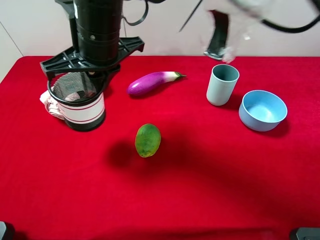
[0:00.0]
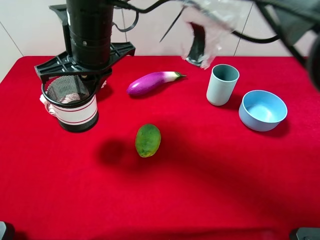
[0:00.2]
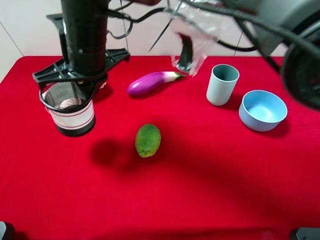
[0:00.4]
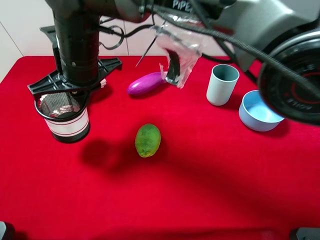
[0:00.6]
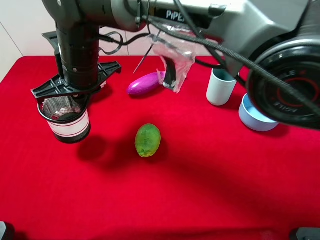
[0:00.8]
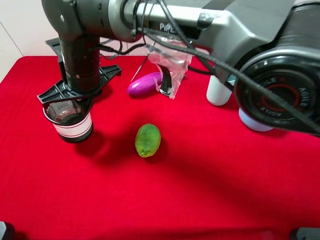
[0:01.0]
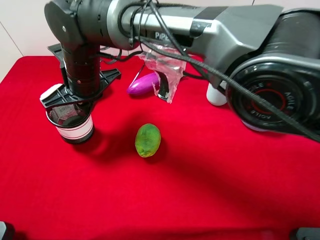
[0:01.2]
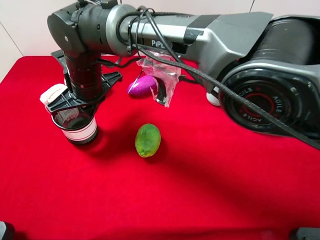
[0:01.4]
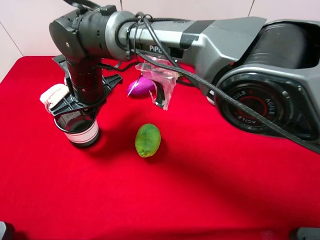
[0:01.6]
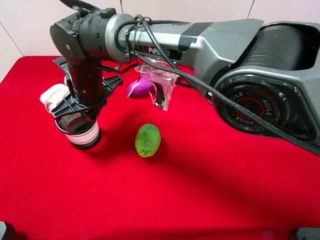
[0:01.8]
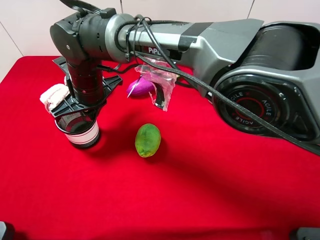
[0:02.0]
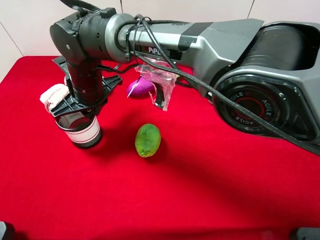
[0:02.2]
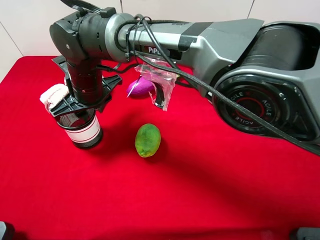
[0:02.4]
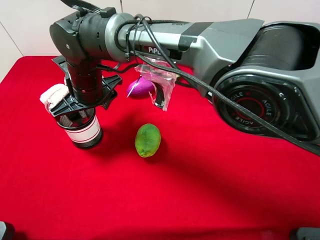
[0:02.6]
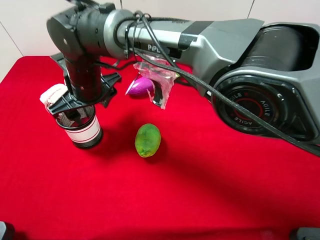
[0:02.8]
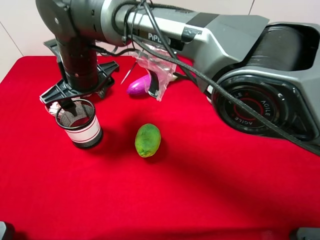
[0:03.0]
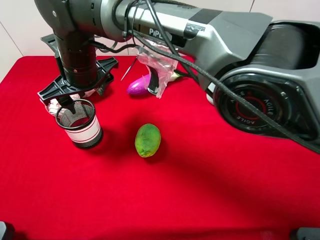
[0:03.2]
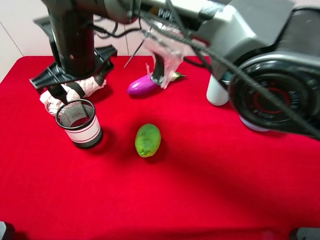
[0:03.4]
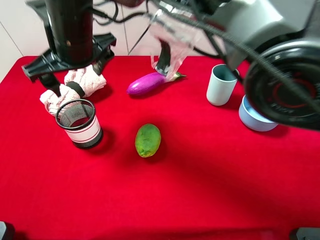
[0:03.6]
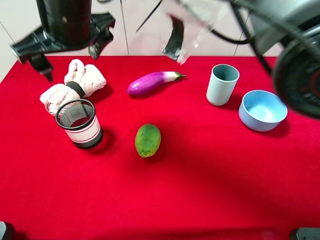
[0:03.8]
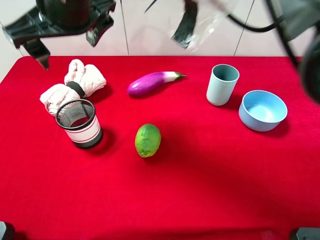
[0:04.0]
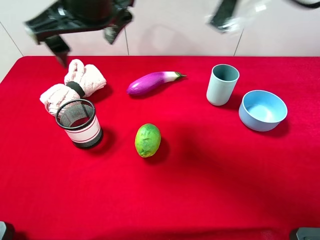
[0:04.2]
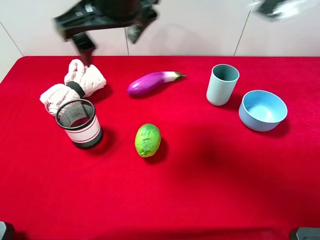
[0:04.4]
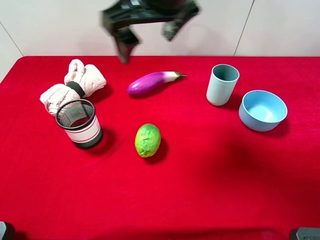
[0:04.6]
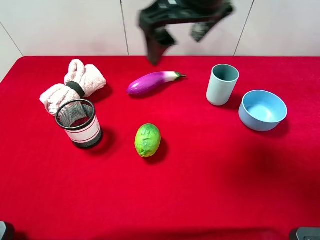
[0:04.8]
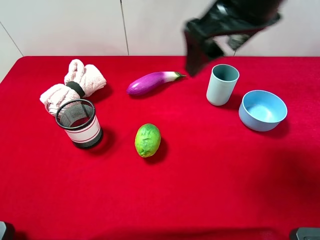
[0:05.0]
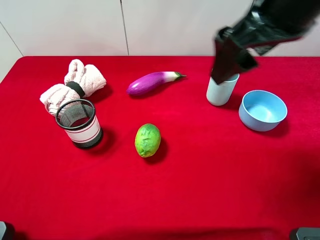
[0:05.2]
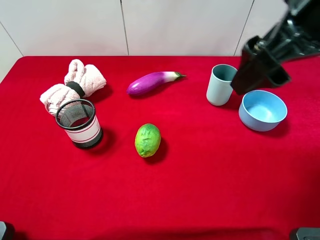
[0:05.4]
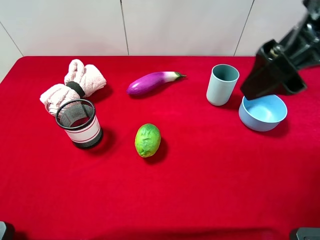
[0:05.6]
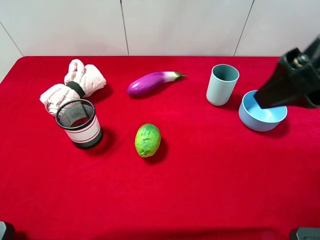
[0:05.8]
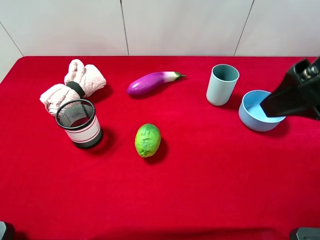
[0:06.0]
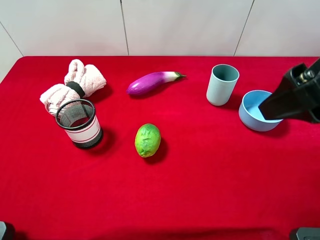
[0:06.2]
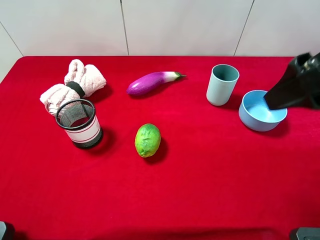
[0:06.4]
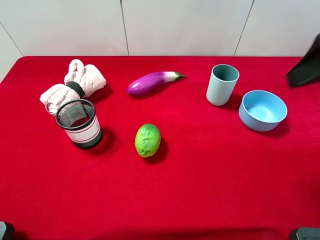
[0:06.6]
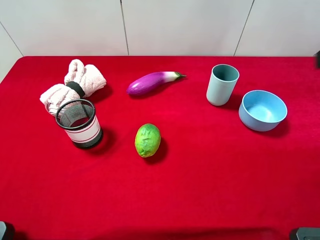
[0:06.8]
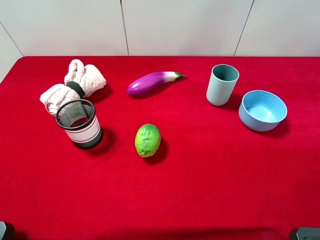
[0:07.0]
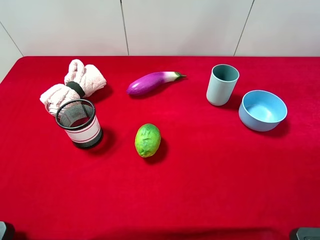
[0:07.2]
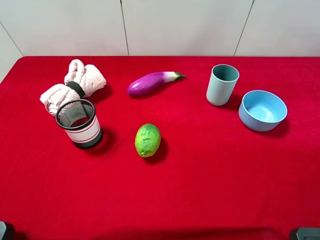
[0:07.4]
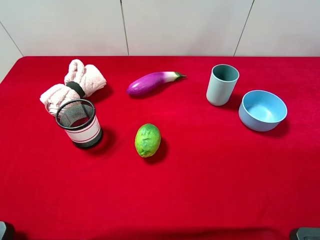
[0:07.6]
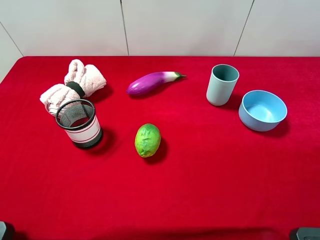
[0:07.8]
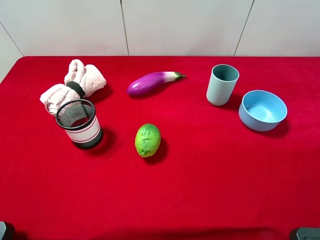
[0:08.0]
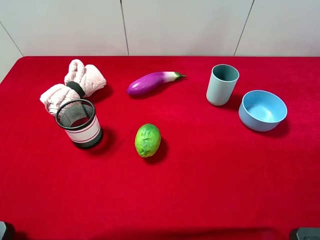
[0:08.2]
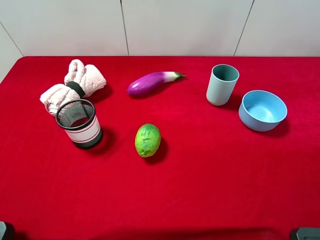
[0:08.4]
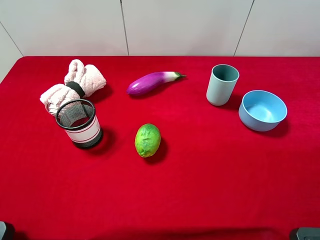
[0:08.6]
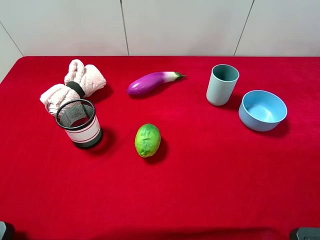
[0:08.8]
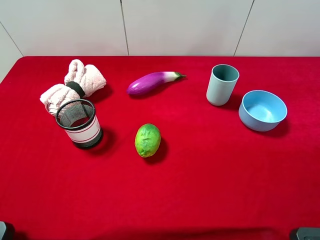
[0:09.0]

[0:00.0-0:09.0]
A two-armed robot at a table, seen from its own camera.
Task of the whole recording: the gripper move the object.
Step, 0:00.0 to 0:03.4: Place the pen container on the table with the right gripper.
0:00.0 to 0:01.6: The right gripper shifts approximately 10 cm downward.
0:01.6 to 0:03.0: The right gripper opens its fingers.
0:03.0 to 0:04.4: The right gripper is displaced upward and to the right by about 20 cm.
0:04.4 to 0:06.0: The right gripper shifts approximately 25 cm to the right and backward.
0:06.0 to 0:07.6: The right gripper is displaced backward and to the right by about 15 cm.
